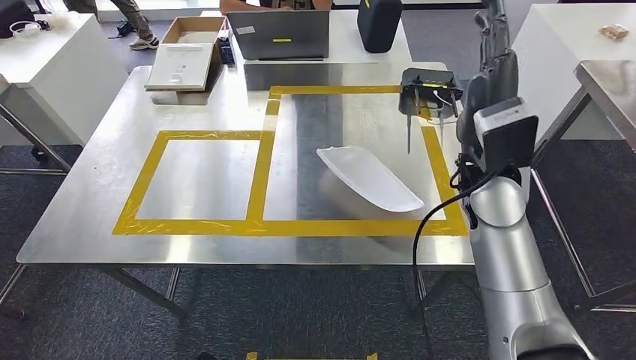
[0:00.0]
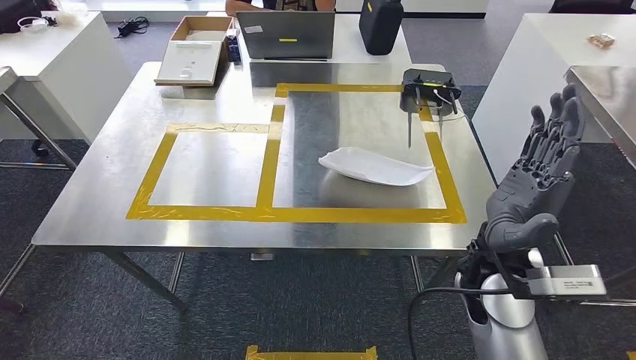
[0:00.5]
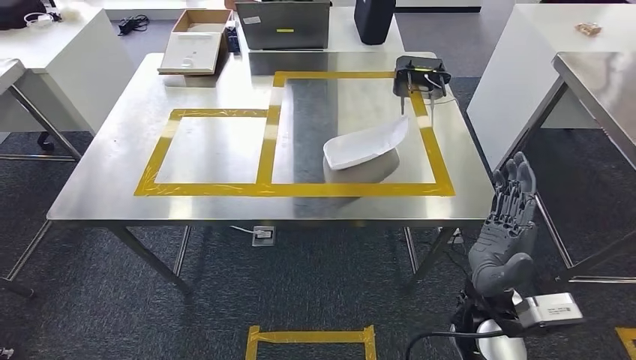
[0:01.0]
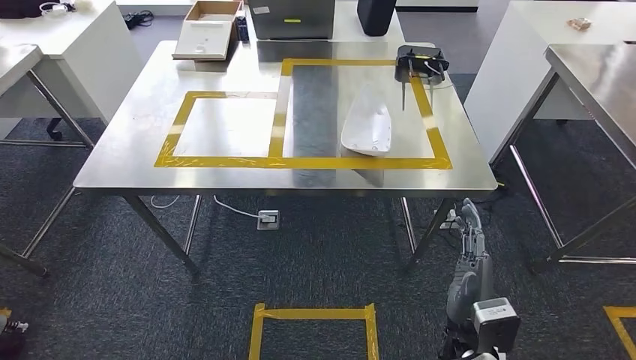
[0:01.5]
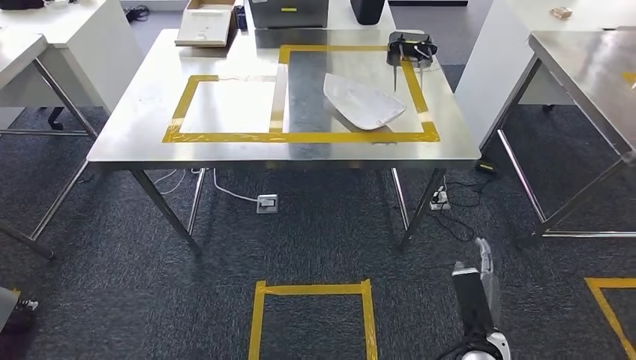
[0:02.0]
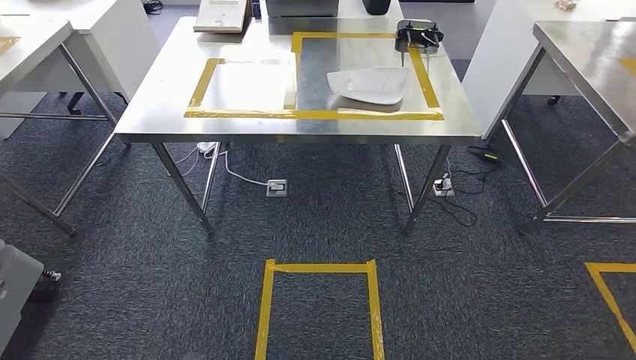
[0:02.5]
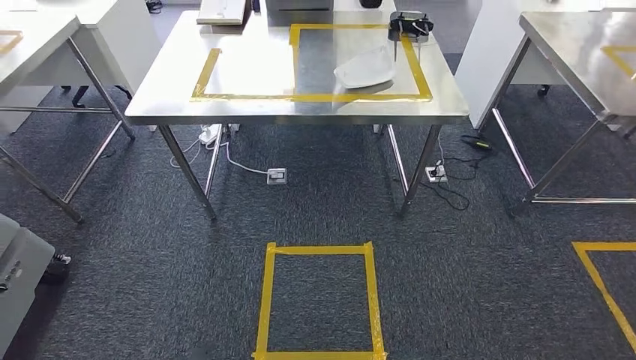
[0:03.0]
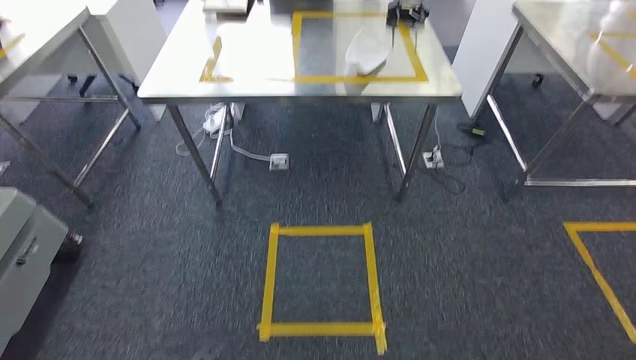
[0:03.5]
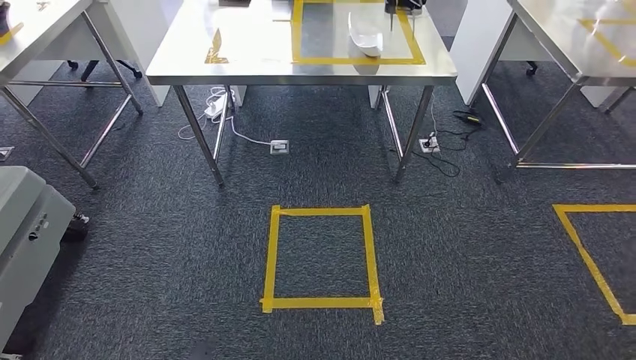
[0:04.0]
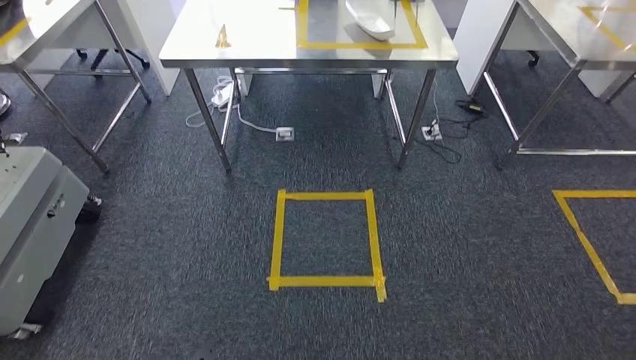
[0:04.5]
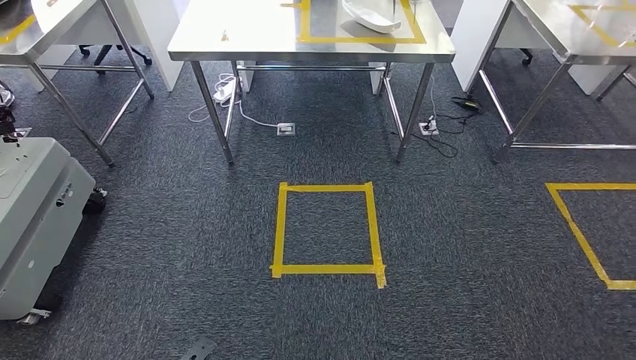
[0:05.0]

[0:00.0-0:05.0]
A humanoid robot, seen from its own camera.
Step, 0:01.0 to 0:03.0: Move to the initial position at the workbench.
Step, 0:03.5 to 0:04.0: Insert the small component into the corresponding slot on the workbench.
Step, 0:04.5 to 0:05.0: Move to the initial position at the workbench.
